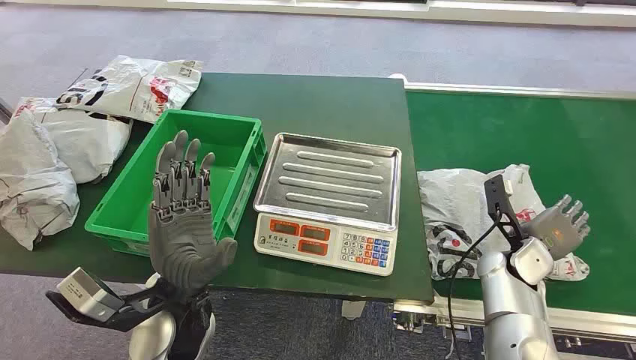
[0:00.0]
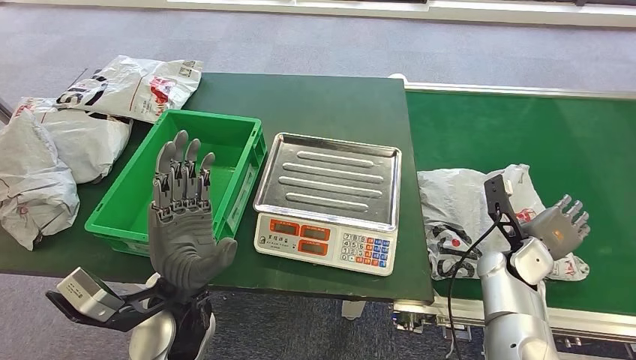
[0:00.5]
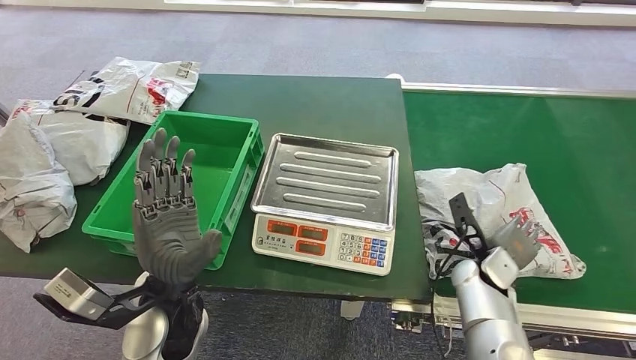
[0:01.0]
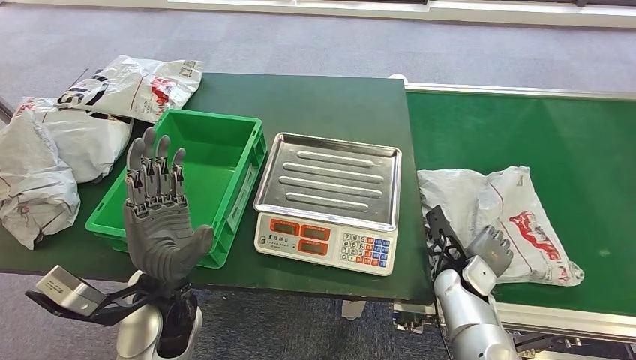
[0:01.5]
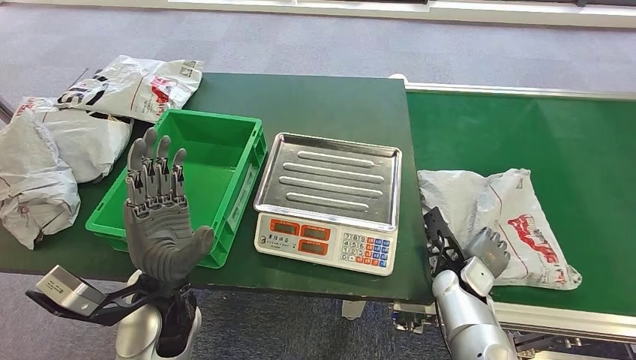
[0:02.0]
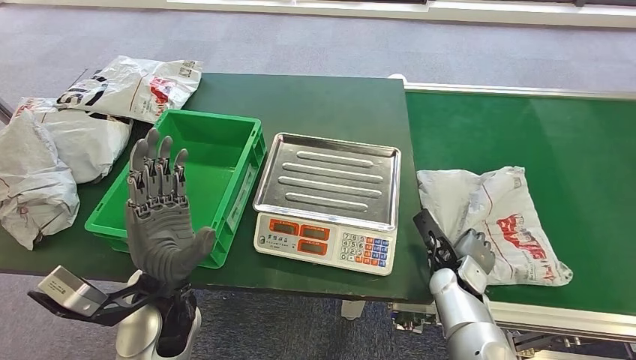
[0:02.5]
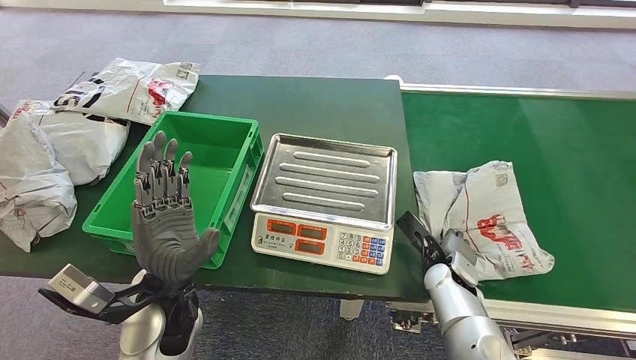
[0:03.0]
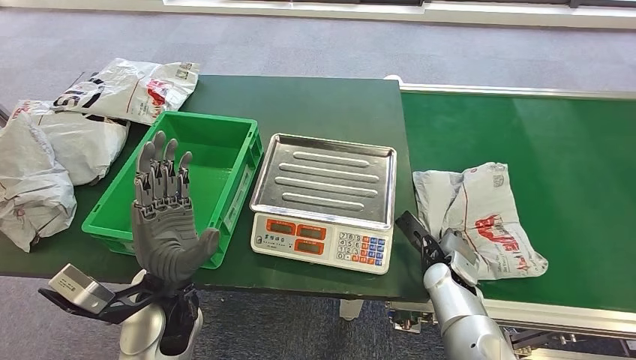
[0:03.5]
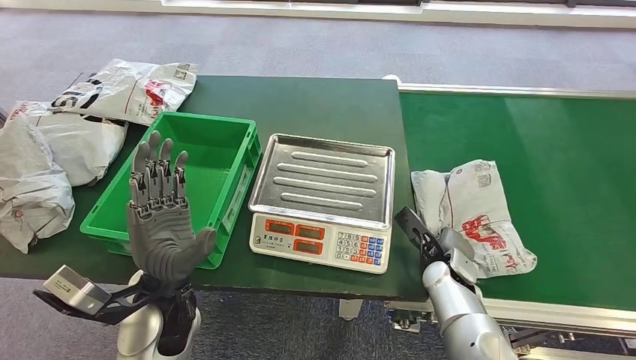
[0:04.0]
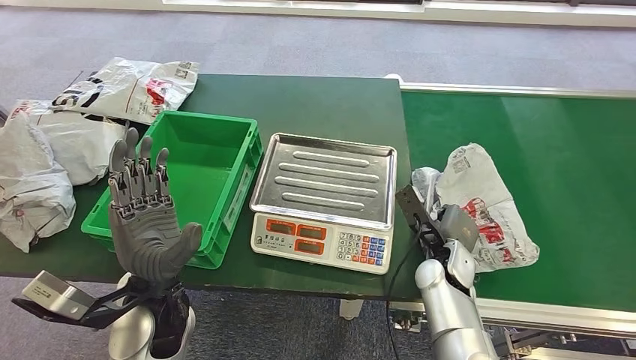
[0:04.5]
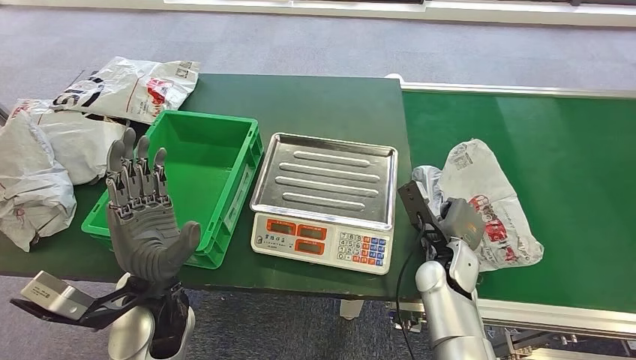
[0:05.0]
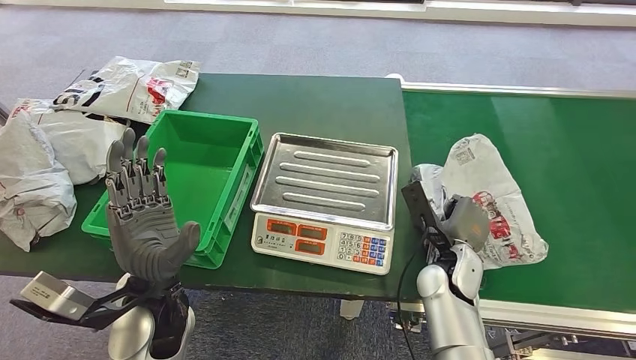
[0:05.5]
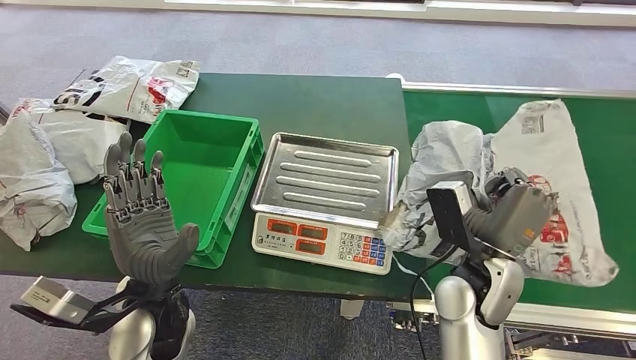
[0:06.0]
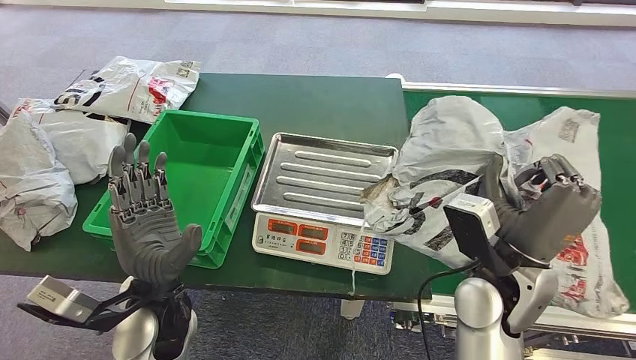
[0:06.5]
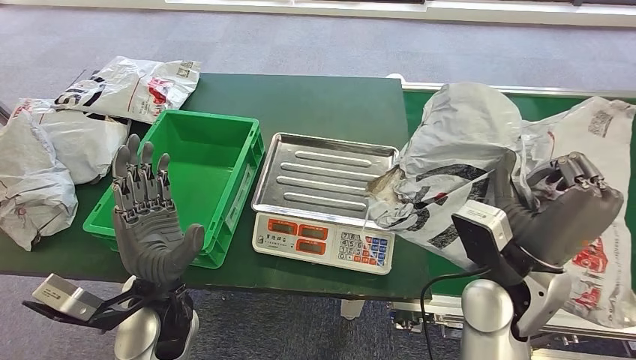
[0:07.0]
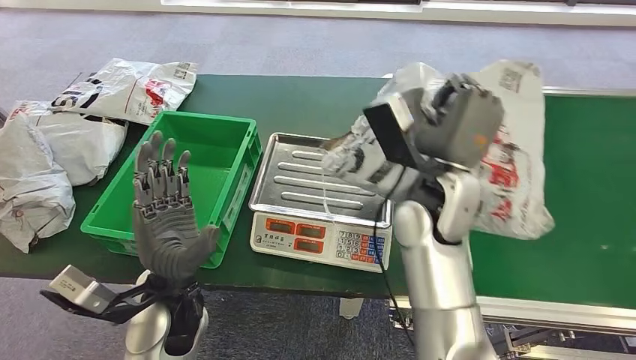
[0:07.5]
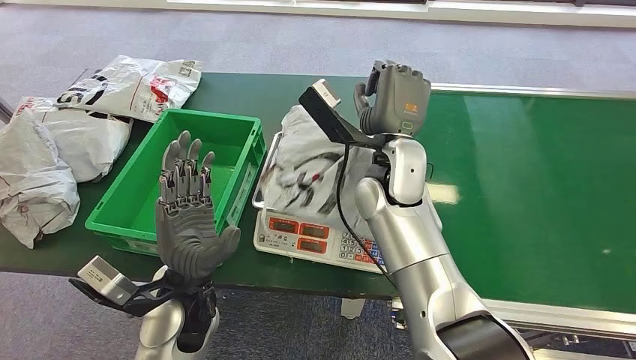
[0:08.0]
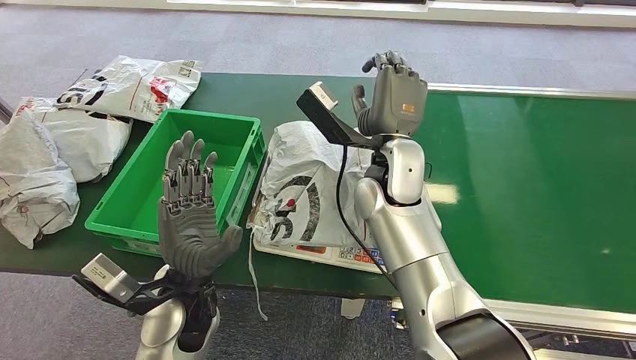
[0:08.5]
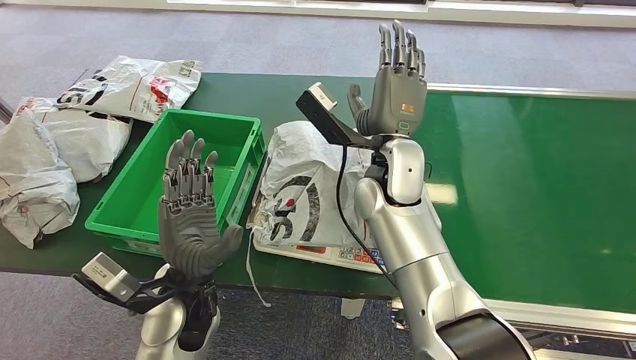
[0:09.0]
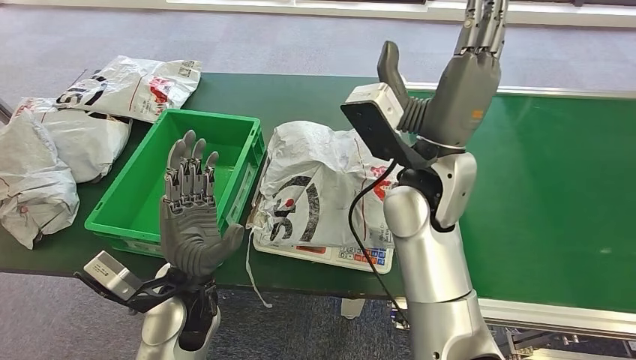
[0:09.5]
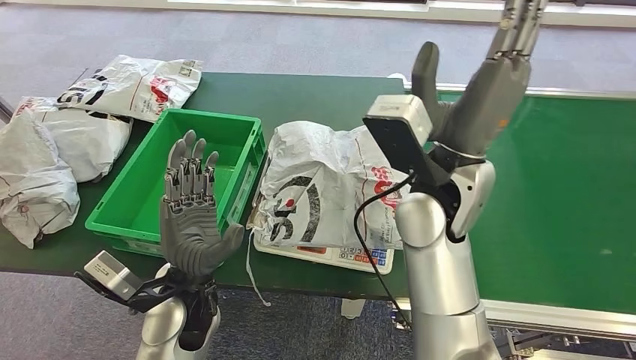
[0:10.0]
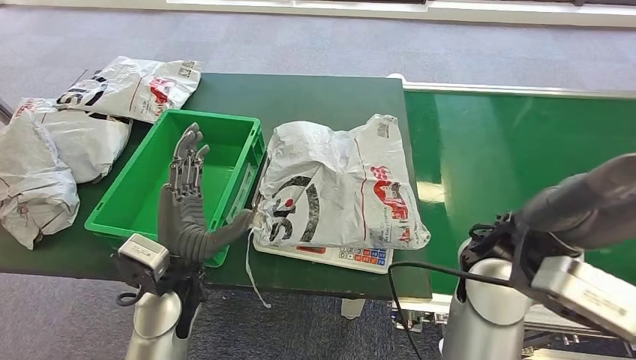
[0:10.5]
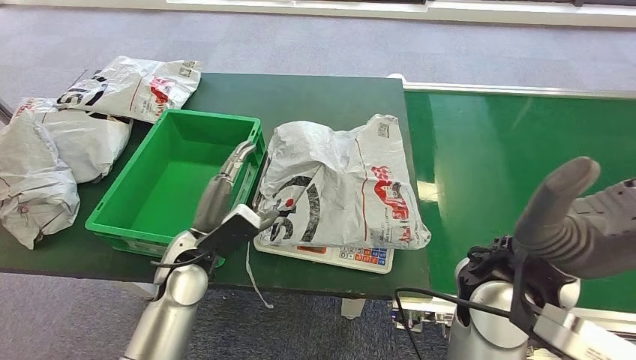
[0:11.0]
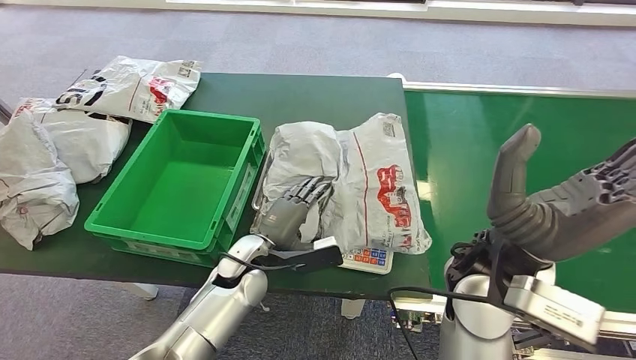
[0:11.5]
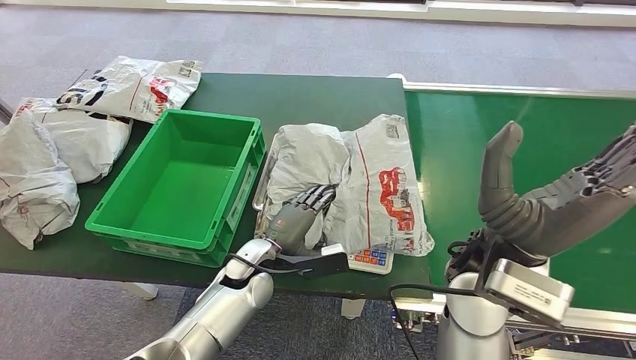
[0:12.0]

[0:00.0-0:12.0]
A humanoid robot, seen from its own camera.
Step, 0:00.0 to 0:06.0: Pick up the package from the conveyor belt.
Step, 0:07.0 to 0:08.5: Place the package onto the inbound machine.

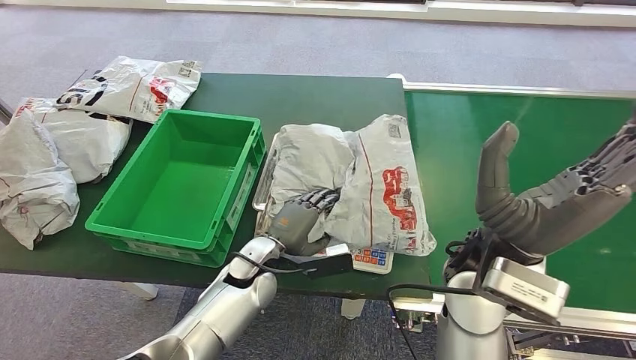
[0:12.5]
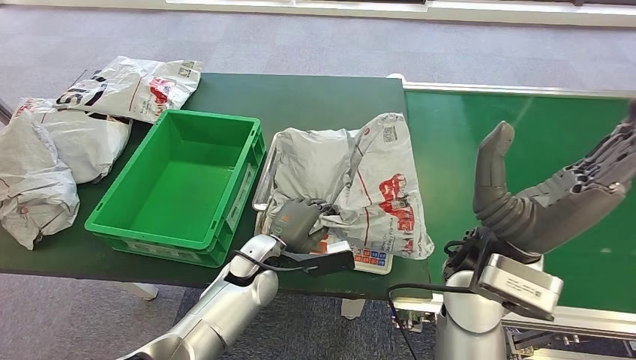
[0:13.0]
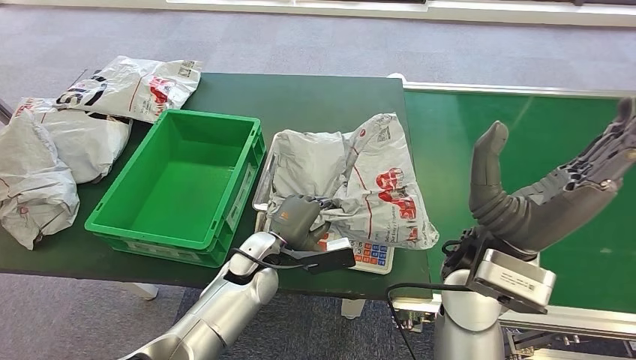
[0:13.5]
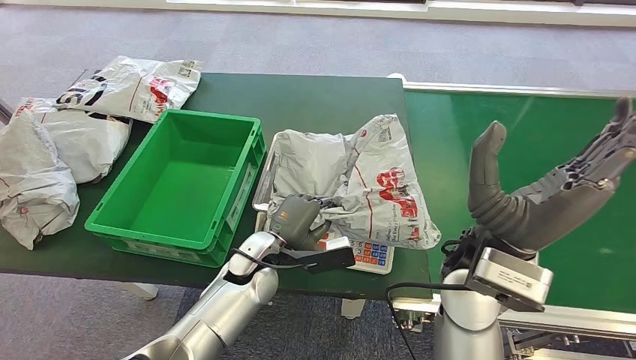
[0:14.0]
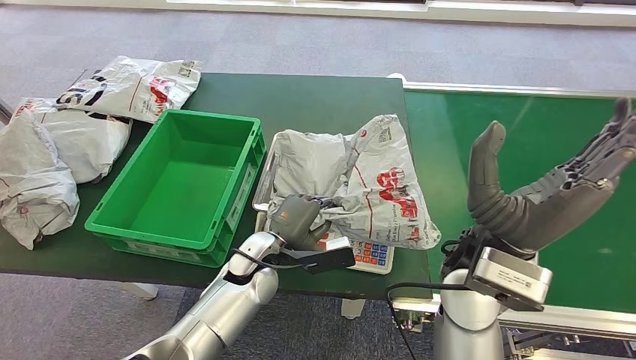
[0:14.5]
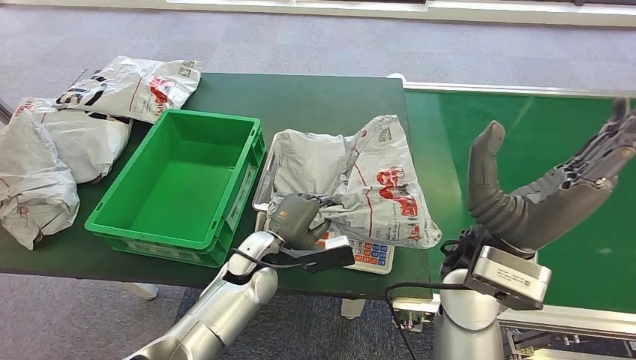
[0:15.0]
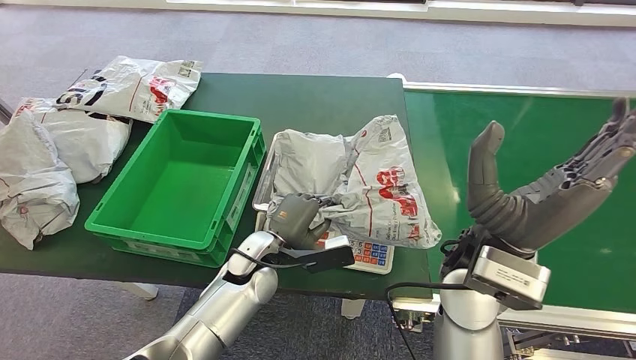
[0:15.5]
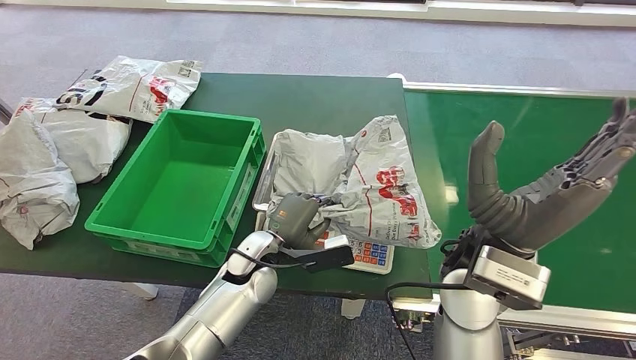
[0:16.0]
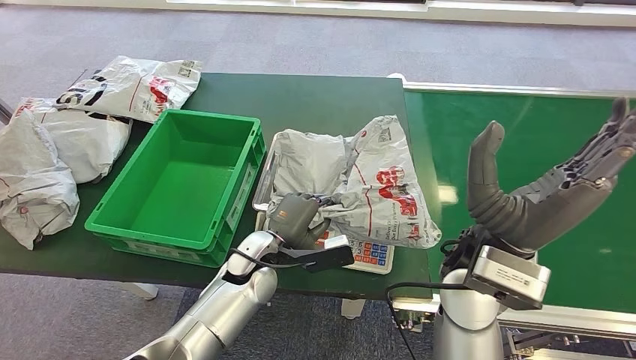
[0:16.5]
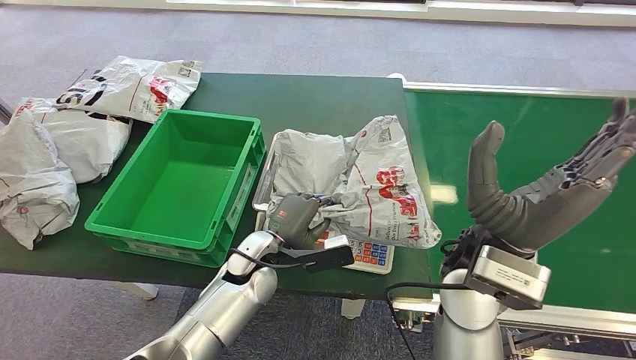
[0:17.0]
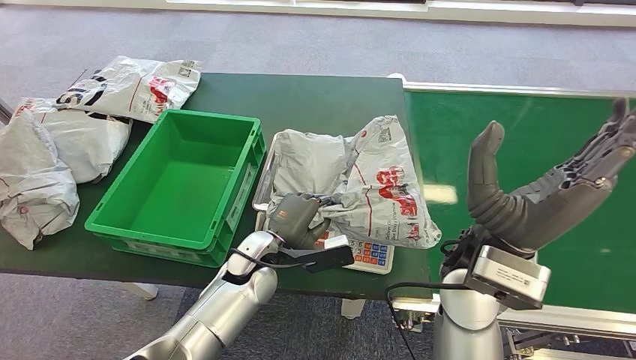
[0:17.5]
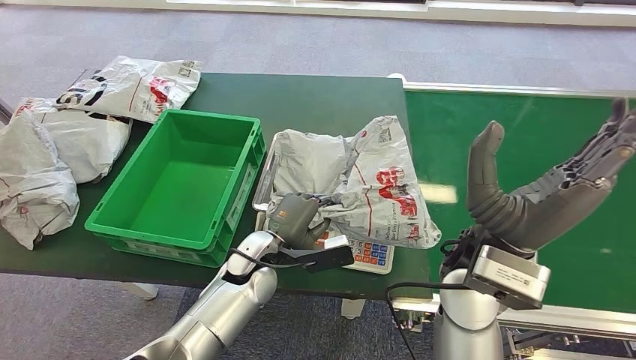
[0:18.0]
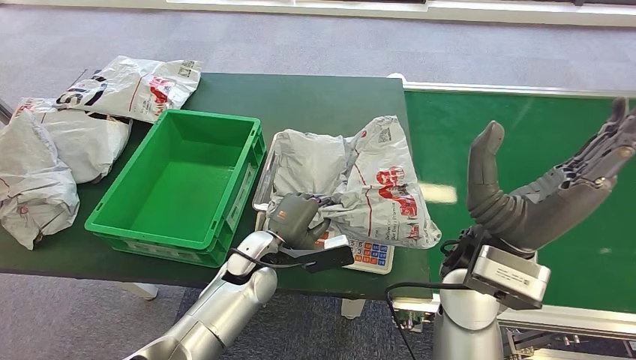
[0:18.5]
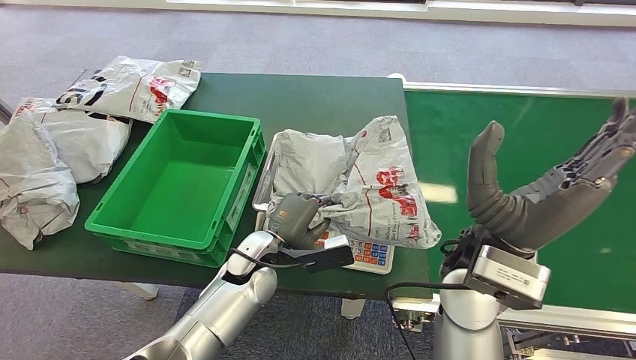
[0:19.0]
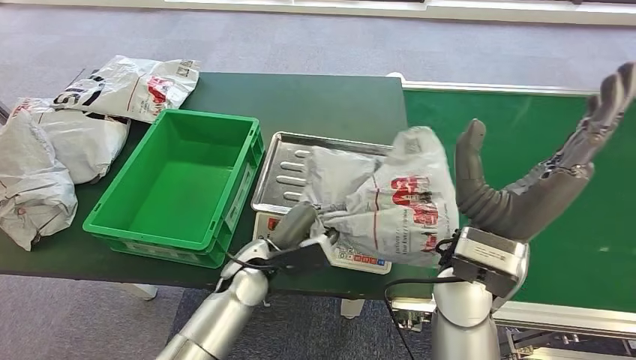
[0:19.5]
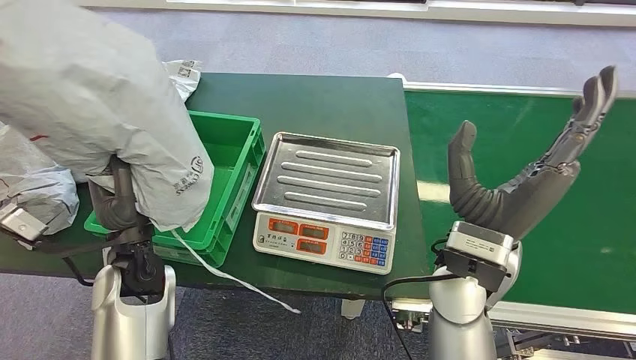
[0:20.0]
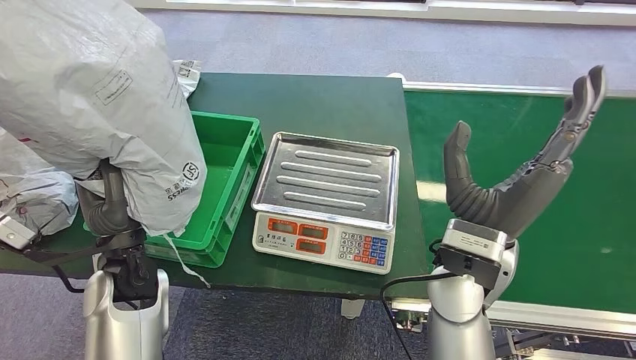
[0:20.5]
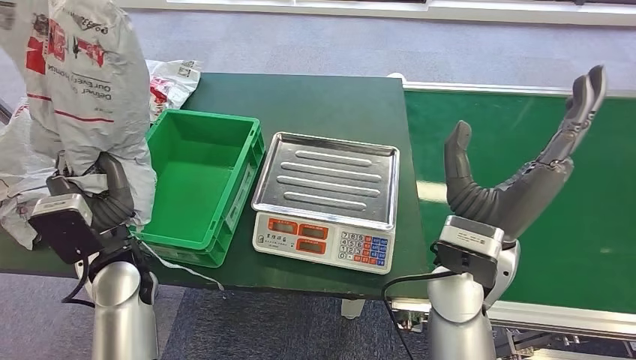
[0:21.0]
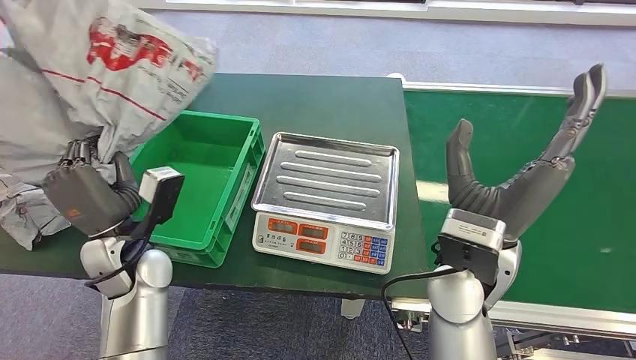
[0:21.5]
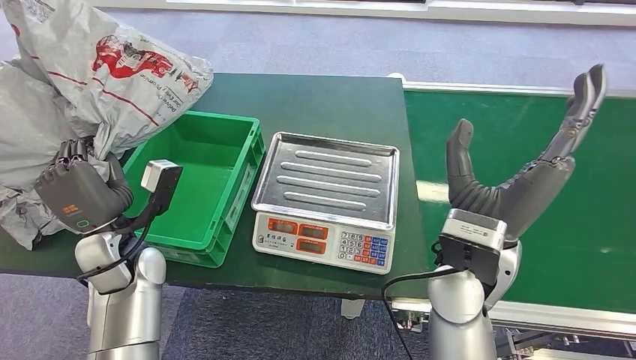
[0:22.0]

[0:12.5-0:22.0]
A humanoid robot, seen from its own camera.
Step, 0:12.5 to 0:20.0: Pick up the package from the inbound machine.
0:12.5 to 0:14.5: The hands move only a little.
0:14.5 to 0:18.0: Both hands stay put.
